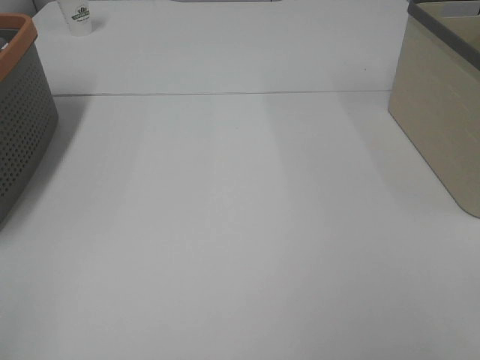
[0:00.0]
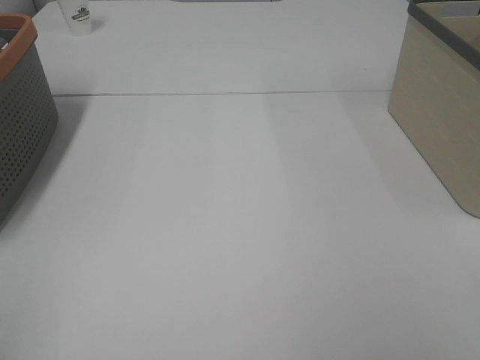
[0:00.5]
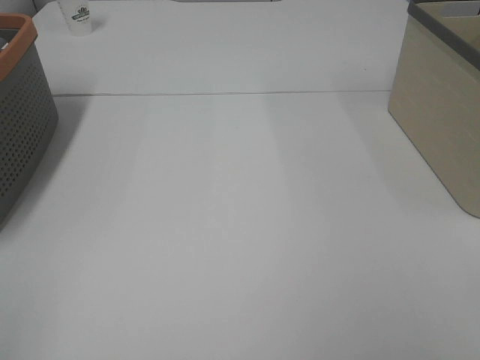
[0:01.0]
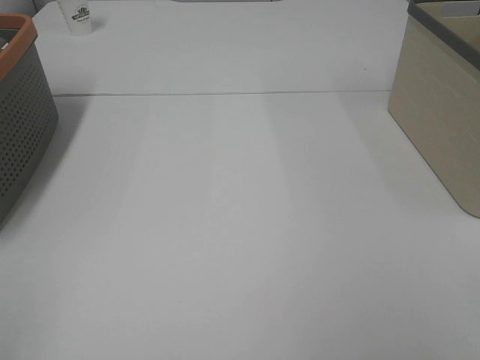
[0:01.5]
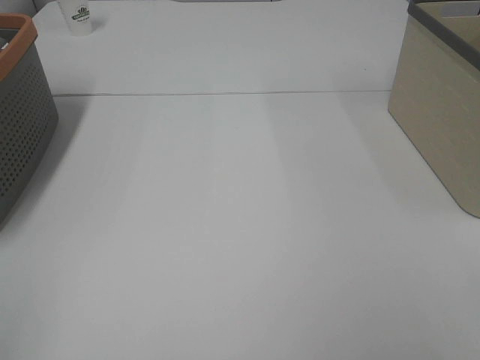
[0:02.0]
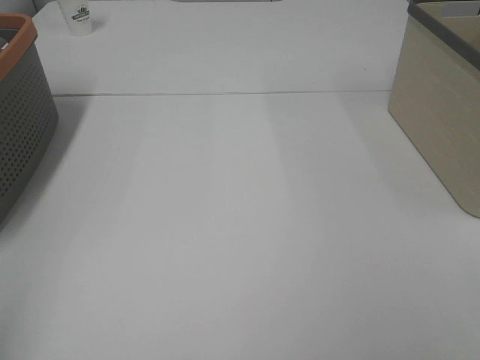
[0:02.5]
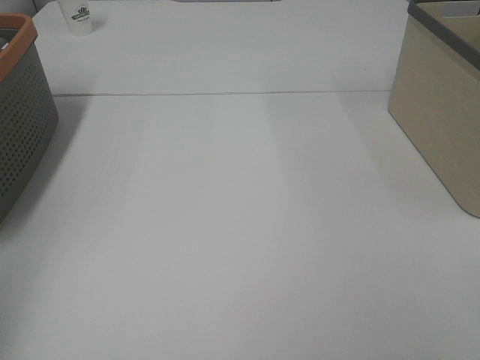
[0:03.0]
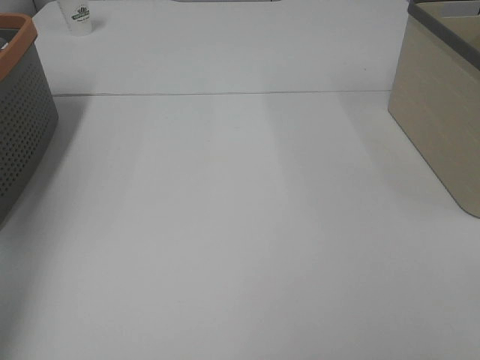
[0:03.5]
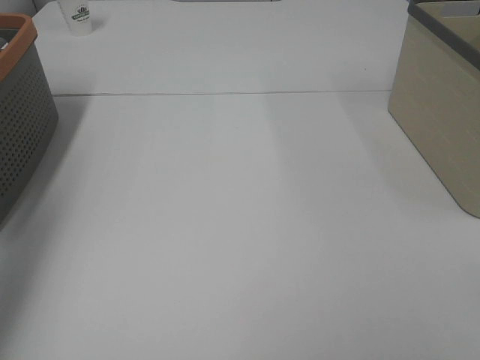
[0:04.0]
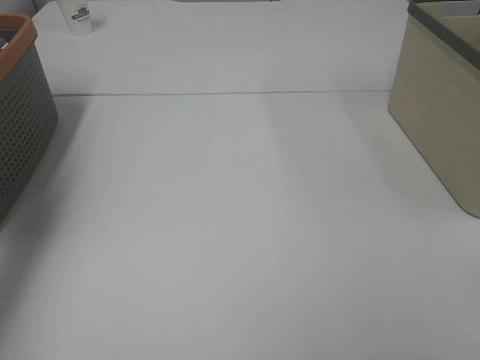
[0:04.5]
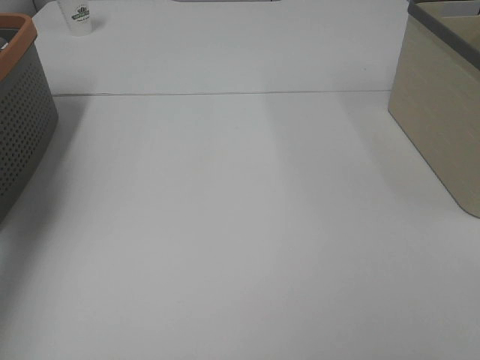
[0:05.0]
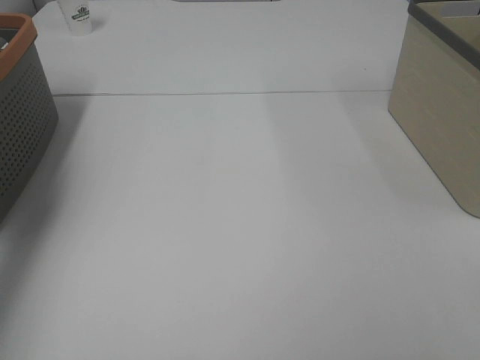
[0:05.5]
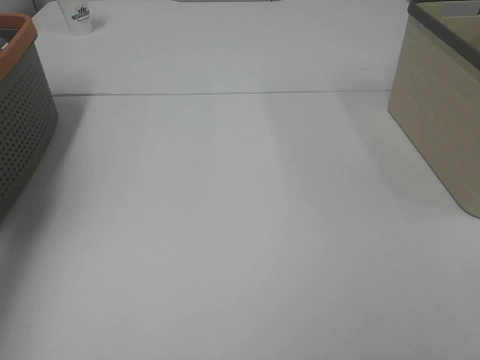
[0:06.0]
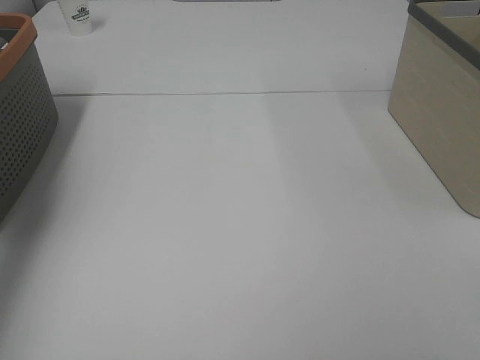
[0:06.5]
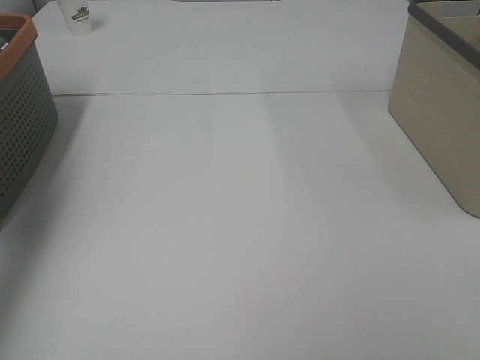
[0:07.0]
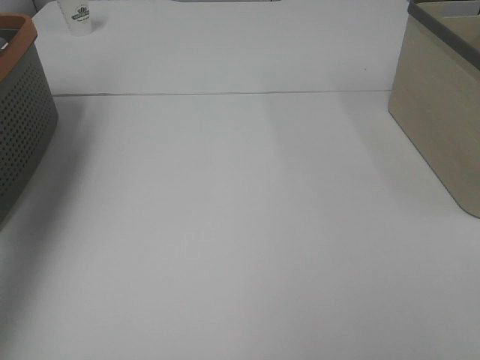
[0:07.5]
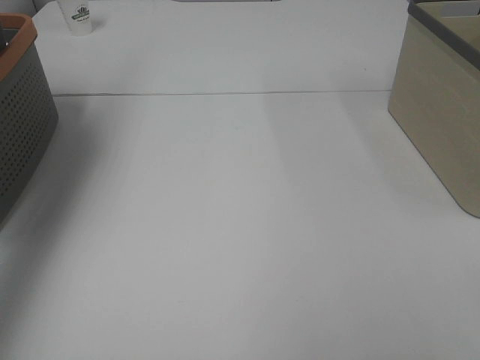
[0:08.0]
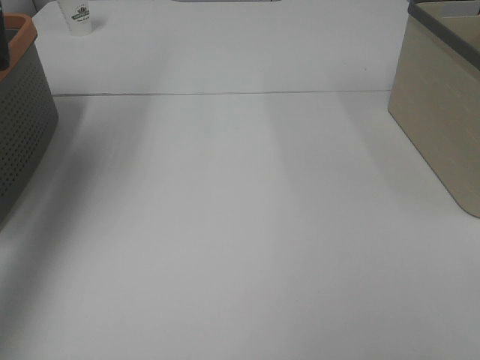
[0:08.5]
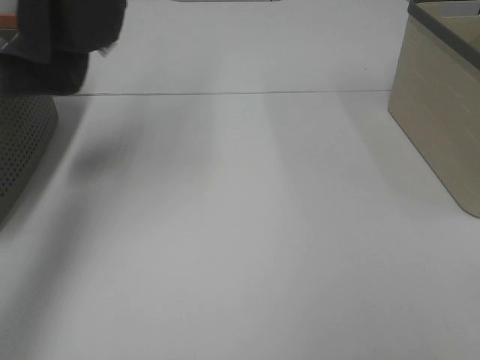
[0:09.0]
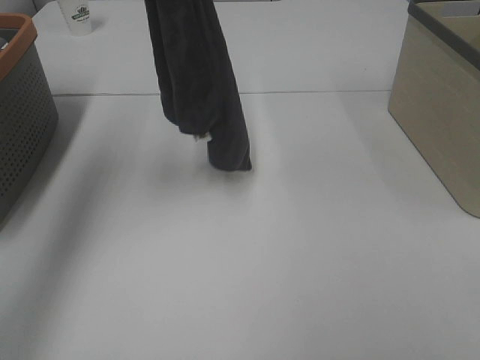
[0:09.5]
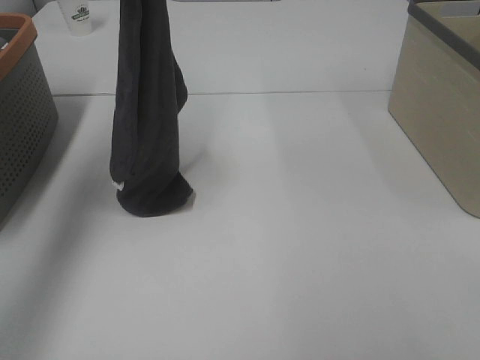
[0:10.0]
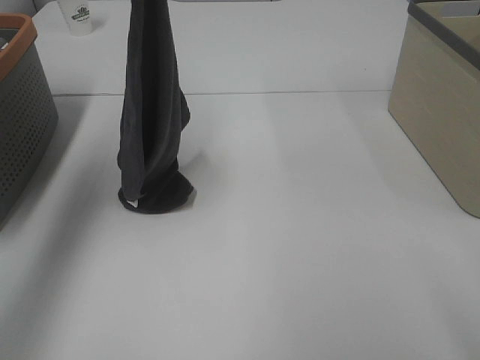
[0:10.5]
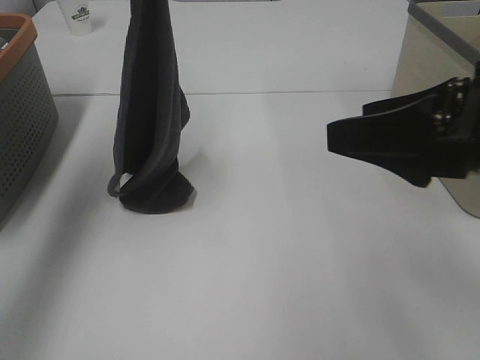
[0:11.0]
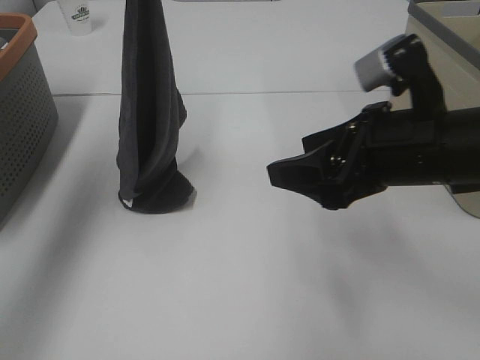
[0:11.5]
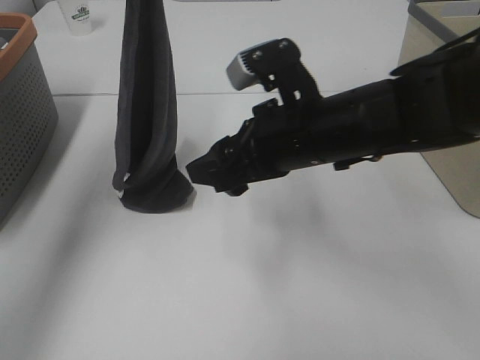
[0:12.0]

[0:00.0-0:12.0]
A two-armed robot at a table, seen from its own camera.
Task of the whole recording: Remove the towel and place it.
0:00.0 to 0:02.0: Both grippers stay put.
0:02.0 to 0:04.0: The left gripper heads forward, covering about 30 cm.
0:06.0 to 0:08.0: The left gripper heads upward, covering about 25 cm, and closes up.
0:08.0 to 0:10.0: The left gripper goes approximately 15 cm to the right and downward.
0:10.0 to 0:12.0: The right gripper moves forward and to the left, roughly 35 cm.

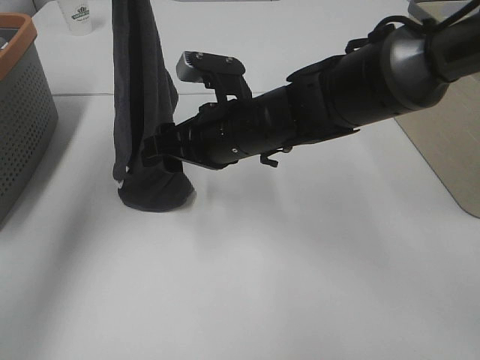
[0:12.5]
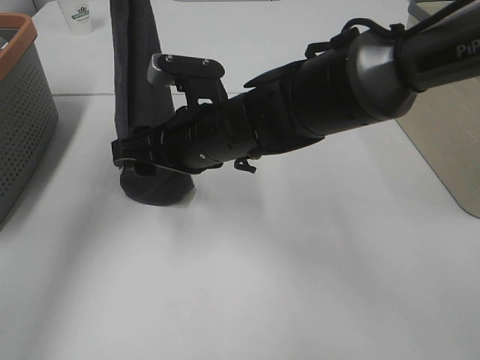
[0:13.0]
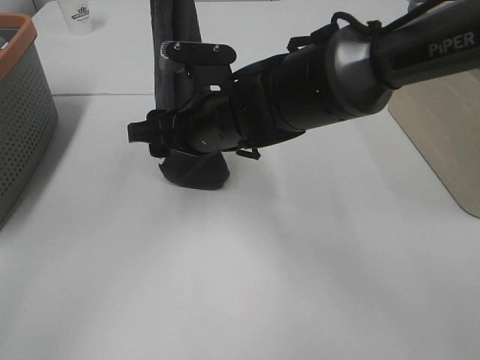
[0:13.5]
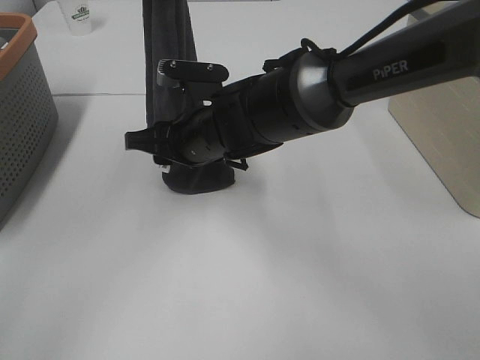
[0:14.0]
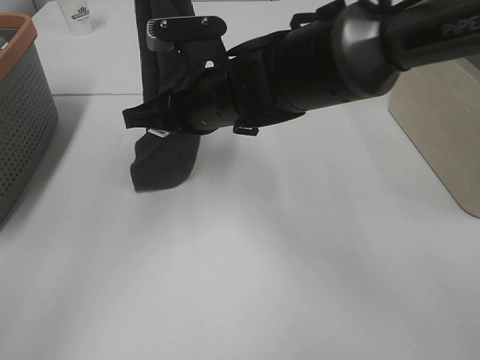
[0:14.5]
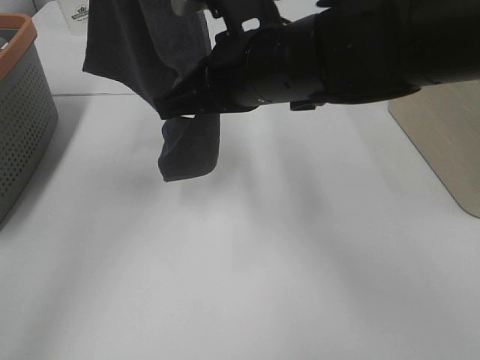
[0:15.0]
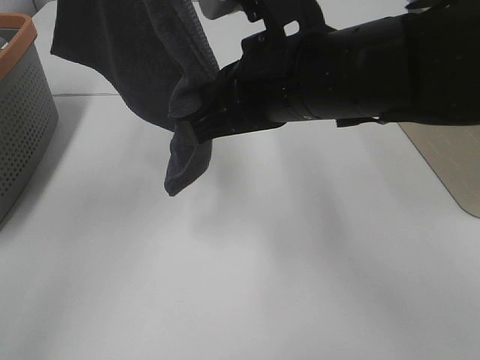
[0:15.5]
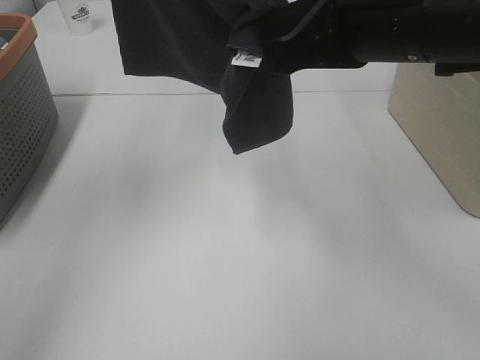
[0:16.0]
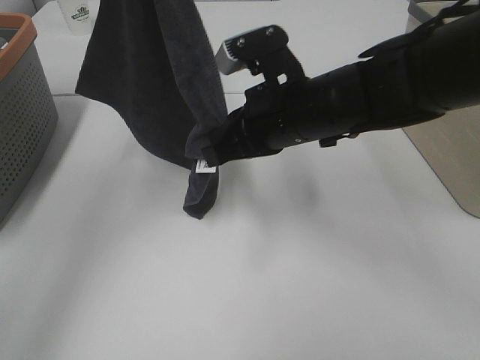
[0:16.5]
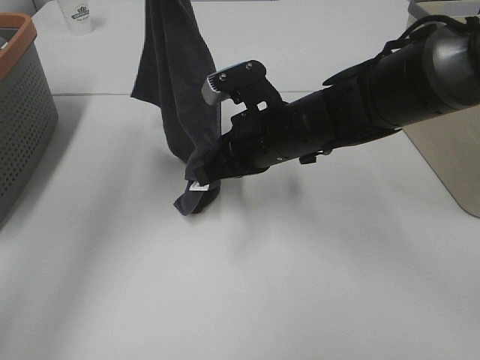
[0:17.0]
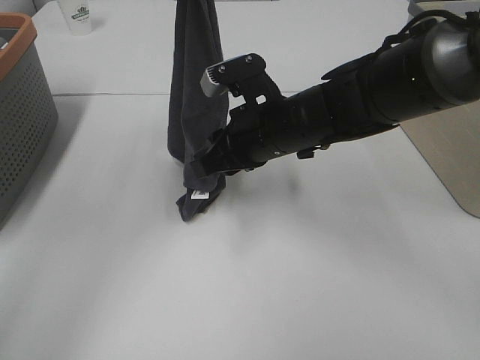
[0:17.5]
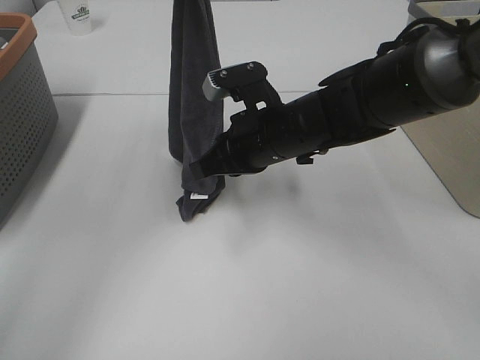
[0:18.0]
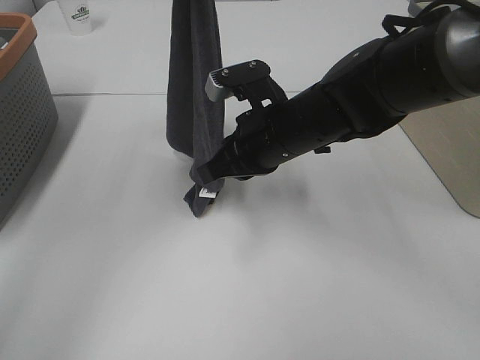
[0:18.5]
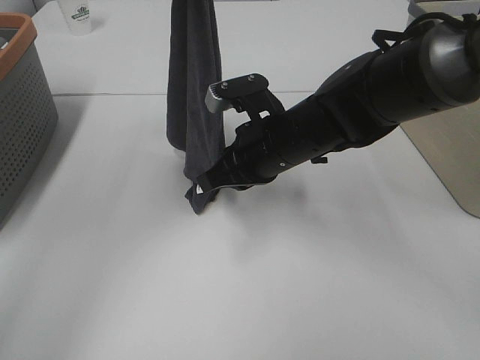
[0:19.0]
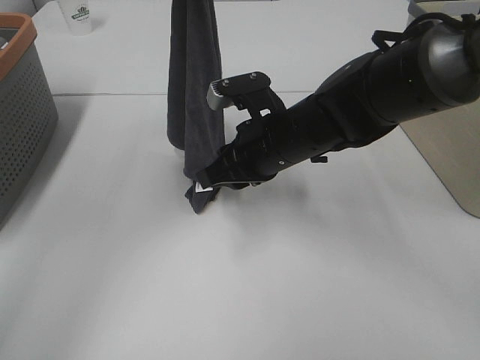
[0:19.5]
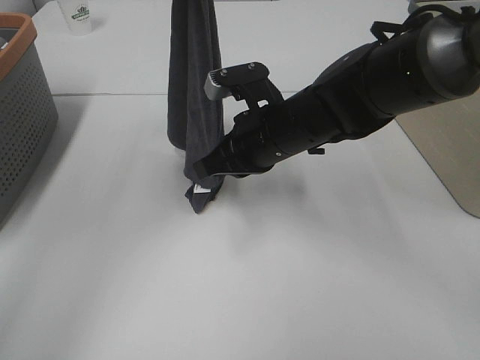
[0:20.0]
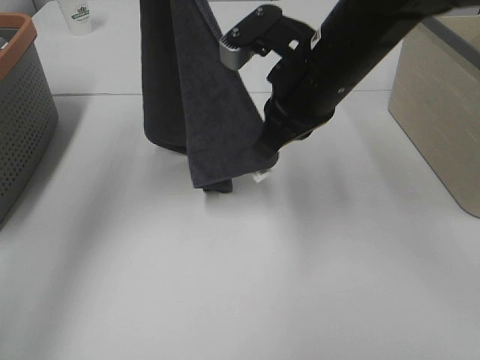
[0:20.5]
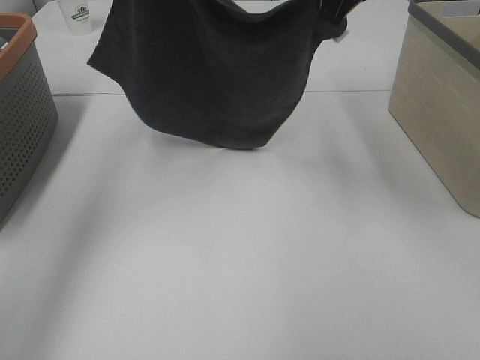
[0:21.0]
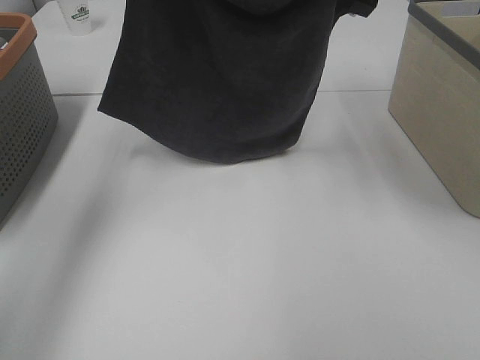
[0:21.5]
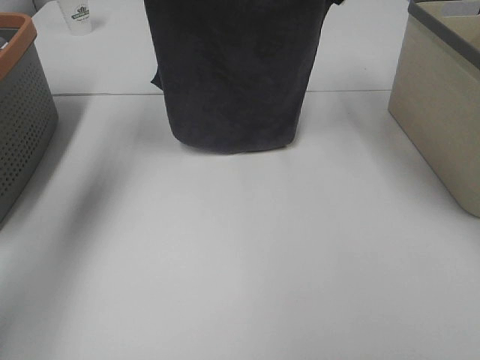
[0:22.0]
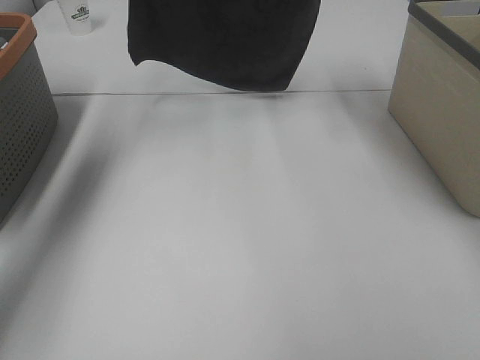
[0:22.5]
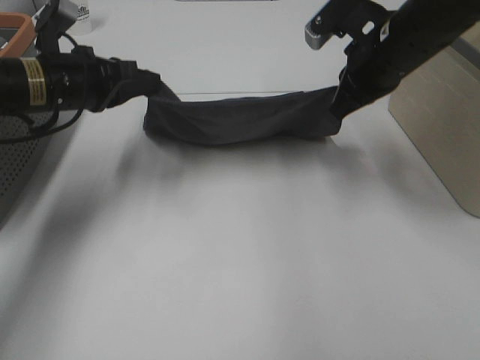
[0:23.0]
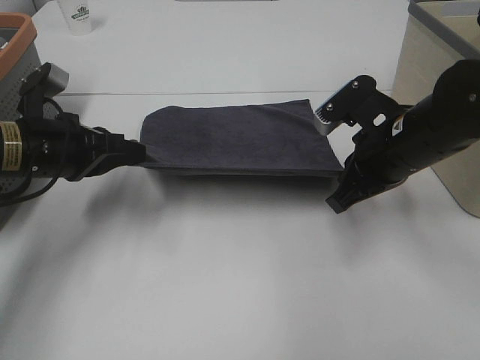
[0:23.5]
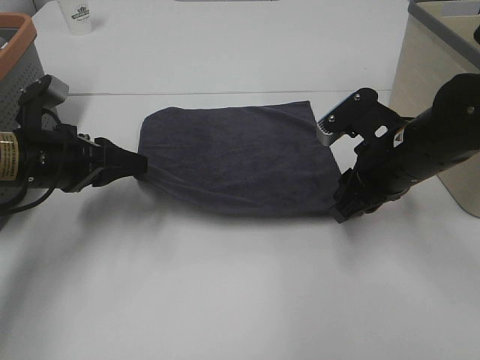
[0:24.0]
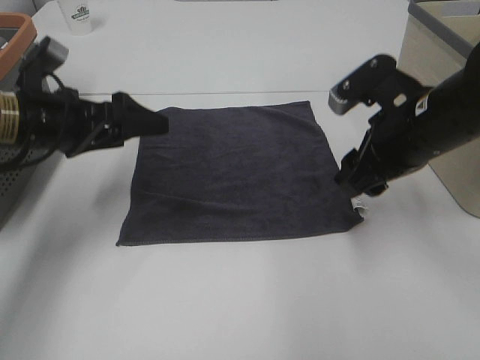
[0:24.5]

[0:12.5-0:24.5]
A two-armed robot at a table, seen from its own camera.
Task of the whole recording: Remove the towel and place it.
Step, 0:12.5 to 0:17.5: Right hand: grab a corner of the grey towel and straighten it.
Step, 0:18.0 to 0:19.0: Left hand: spread the grey towel flat on the table.
Step, 0:18.0 to 0:19.0: Right hand: spread the grey towel flat on the table.
0:12.5 to 0:14.5: The right gripper closes.
0:14.5 to 0:16.5: The right gripper travels to the right by approximately 10 cm.
0:16.5 to 0:18.5: The left gripper shifts by roughly 5 cm.
0:18.5 to 0:20.5: The left gripper moves some 5 cm; the right gripper heads upward, covering some 10 cm.
0:20.5 to 0:22.5: The right gripper shifts some 20 cm forward and upward. Meanwhile the left gripper heads forward, covering roughly 10 cm.
0:22.5 to 0:24.5: The grippers both shift backward and downward by about 25 cm. The left gripper opens. The right gripper opens up.

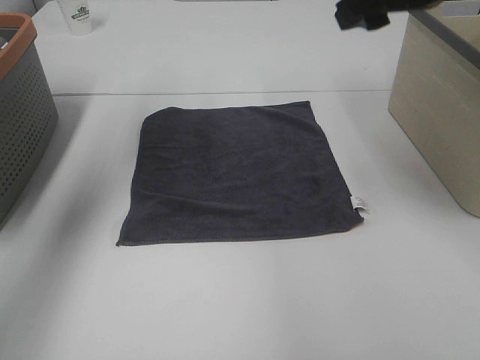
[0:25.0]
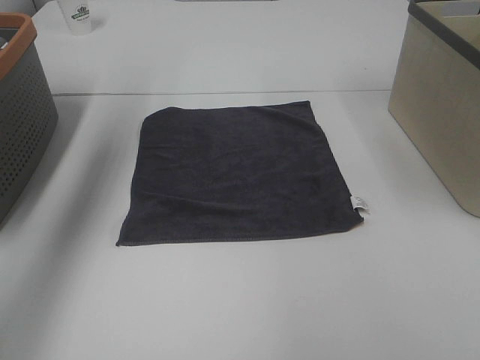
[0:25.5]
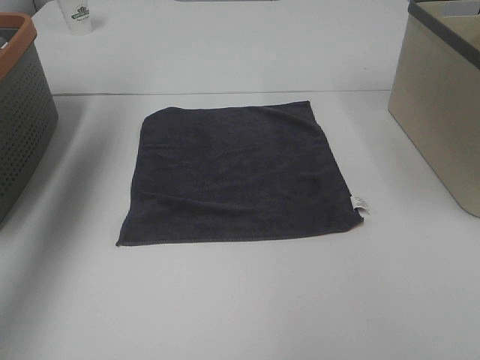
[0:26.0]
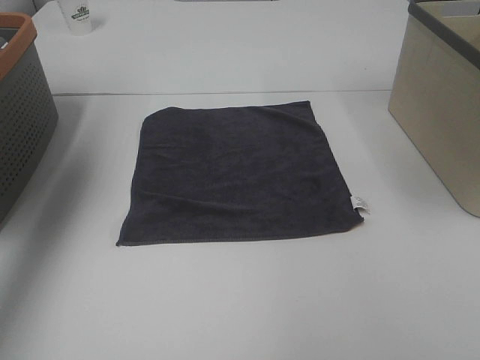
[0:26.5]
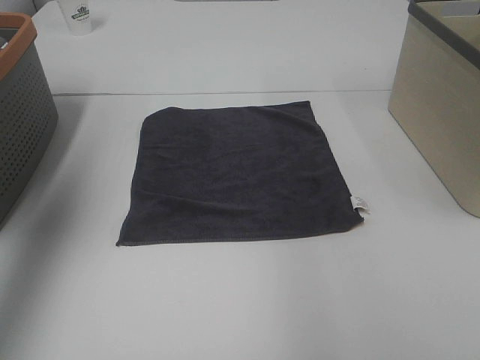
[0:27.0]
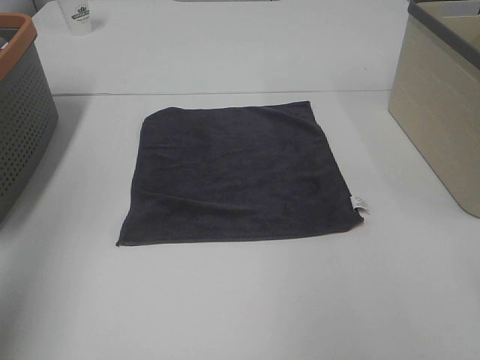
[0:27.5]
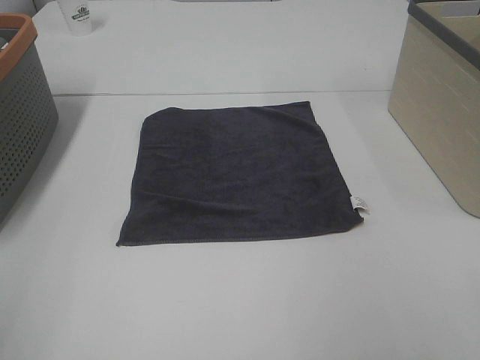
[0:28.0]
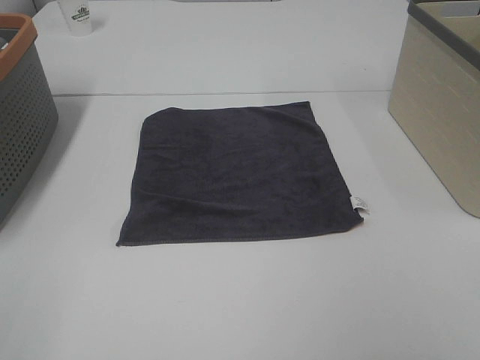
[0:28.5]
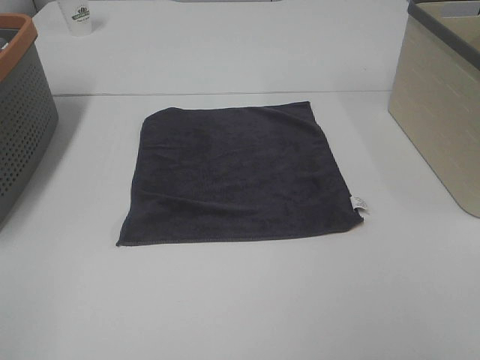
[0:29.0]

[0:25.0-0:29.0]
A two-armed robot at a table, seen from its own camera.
Task of the whole recording: Remove the towel and place it.
0:25.0 to 0:27.0: The left gripper travels backward, to the left and upward by some 20 cm; the right gripper heads to the right and upward, covering approximately 10 cm.
0:27.0 to 0:29.0: The left gripper shifts approximately 30 cm backward and downward.
